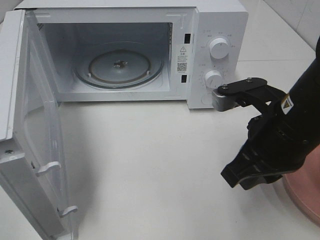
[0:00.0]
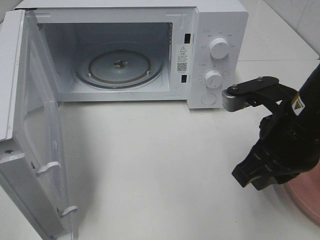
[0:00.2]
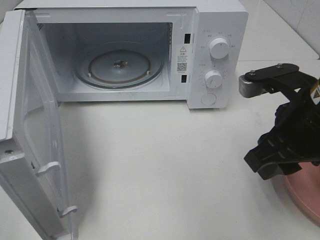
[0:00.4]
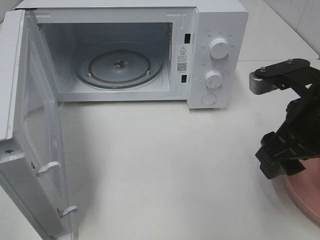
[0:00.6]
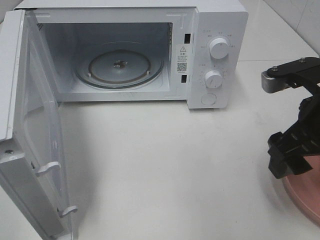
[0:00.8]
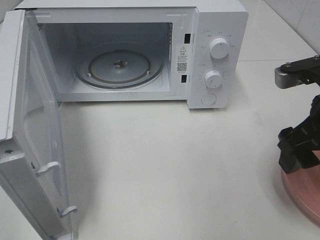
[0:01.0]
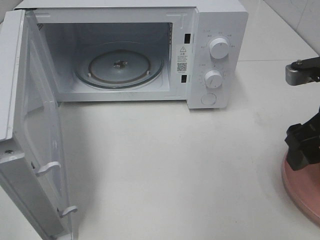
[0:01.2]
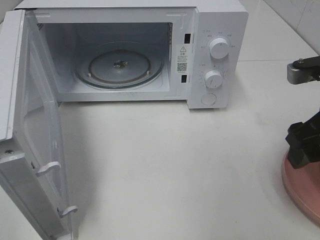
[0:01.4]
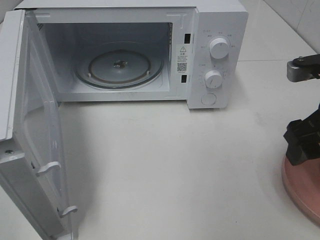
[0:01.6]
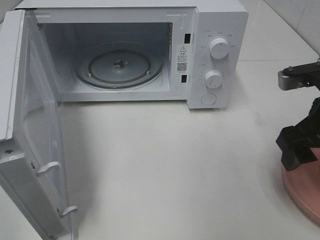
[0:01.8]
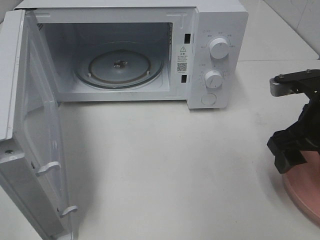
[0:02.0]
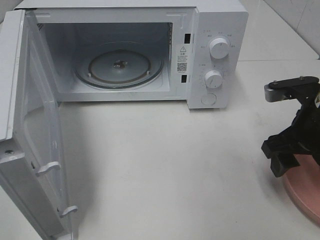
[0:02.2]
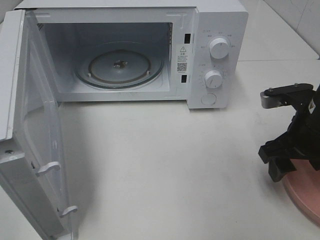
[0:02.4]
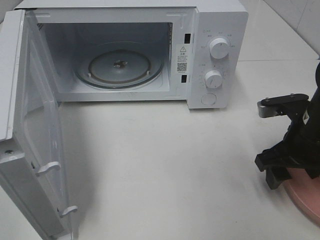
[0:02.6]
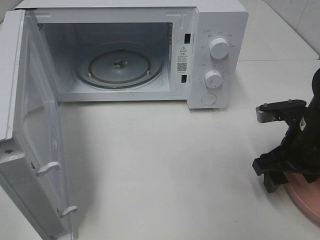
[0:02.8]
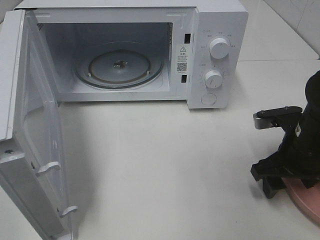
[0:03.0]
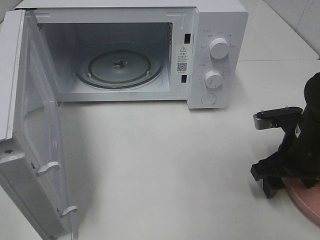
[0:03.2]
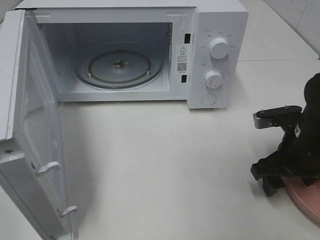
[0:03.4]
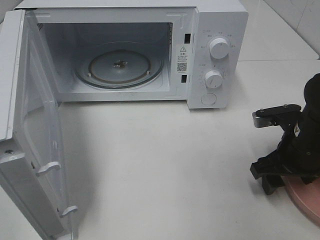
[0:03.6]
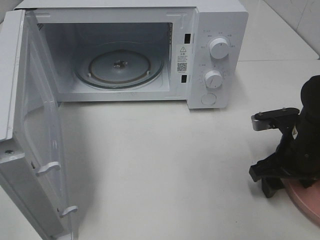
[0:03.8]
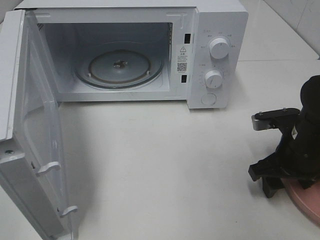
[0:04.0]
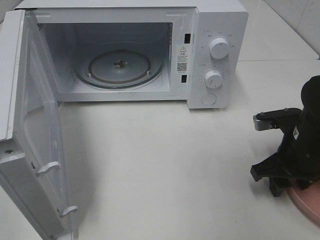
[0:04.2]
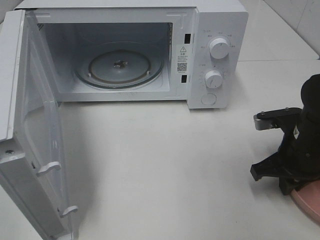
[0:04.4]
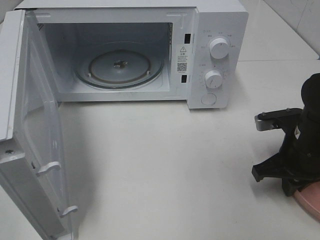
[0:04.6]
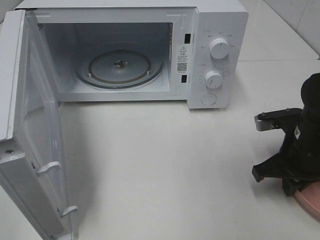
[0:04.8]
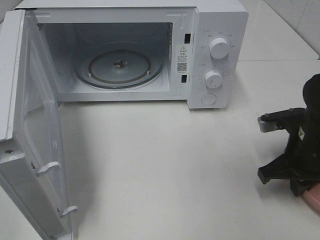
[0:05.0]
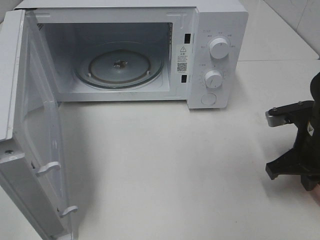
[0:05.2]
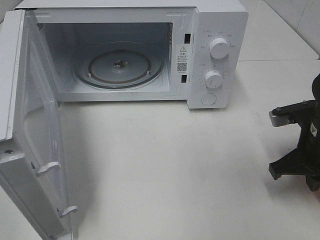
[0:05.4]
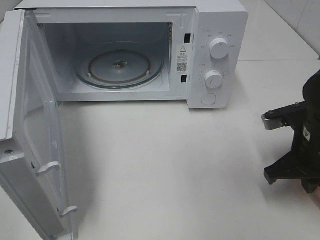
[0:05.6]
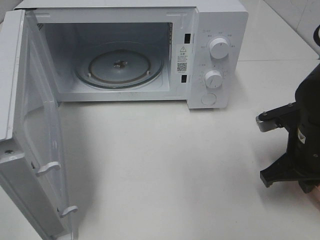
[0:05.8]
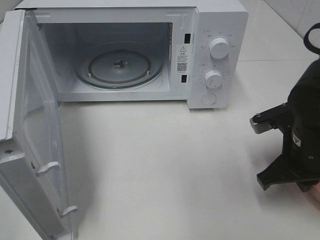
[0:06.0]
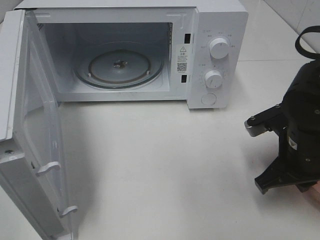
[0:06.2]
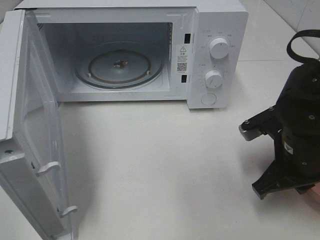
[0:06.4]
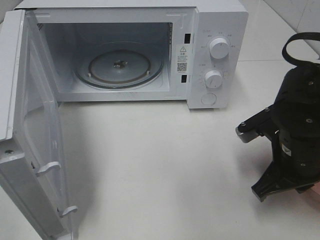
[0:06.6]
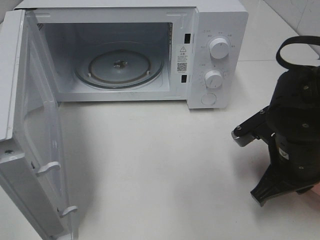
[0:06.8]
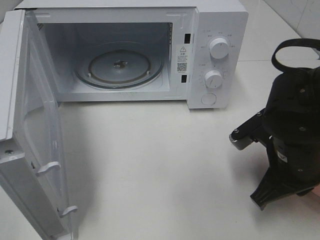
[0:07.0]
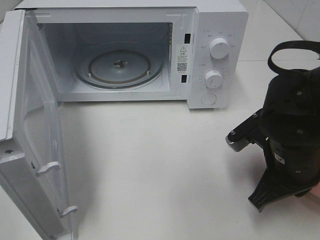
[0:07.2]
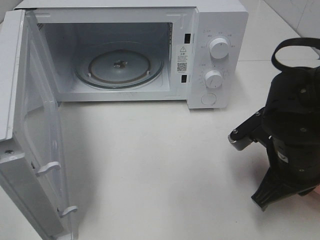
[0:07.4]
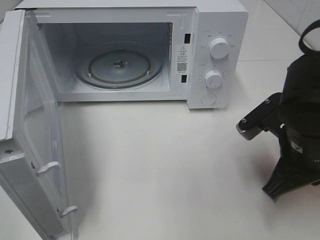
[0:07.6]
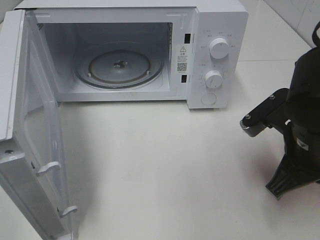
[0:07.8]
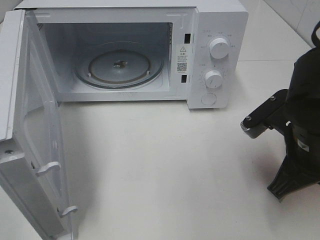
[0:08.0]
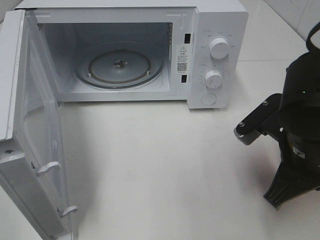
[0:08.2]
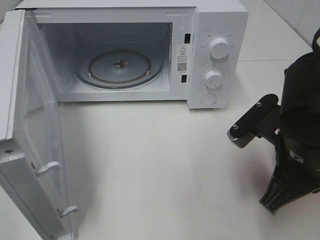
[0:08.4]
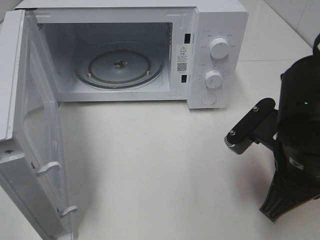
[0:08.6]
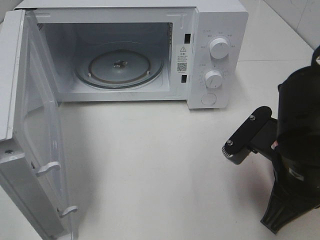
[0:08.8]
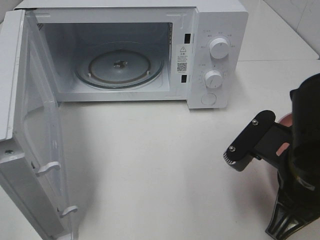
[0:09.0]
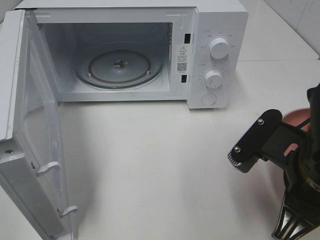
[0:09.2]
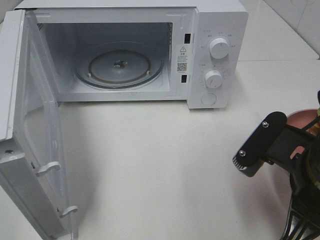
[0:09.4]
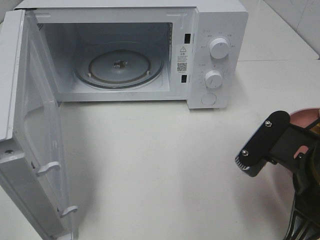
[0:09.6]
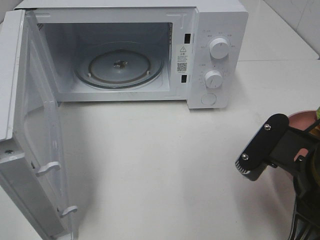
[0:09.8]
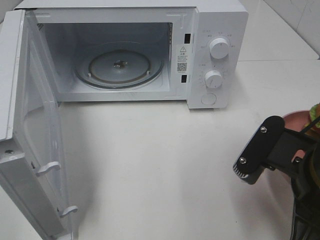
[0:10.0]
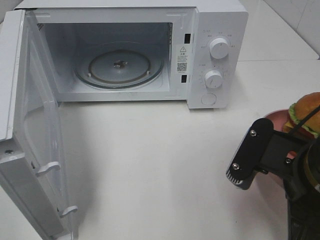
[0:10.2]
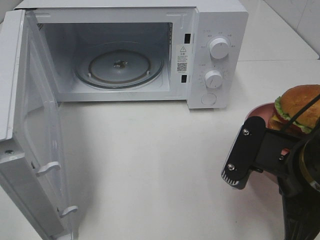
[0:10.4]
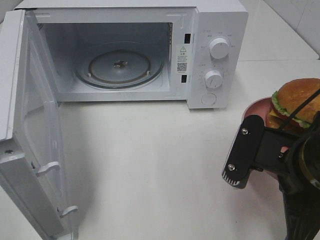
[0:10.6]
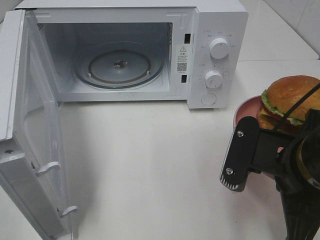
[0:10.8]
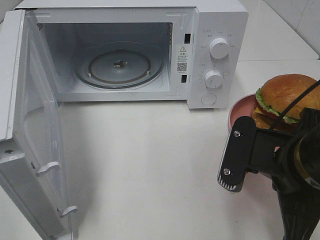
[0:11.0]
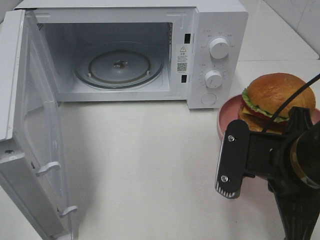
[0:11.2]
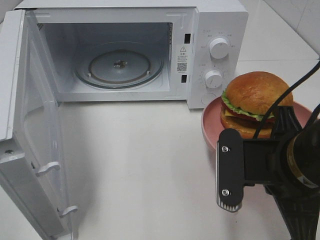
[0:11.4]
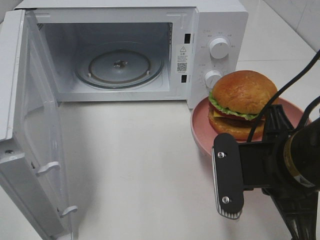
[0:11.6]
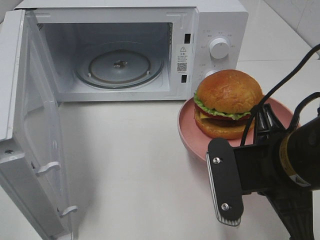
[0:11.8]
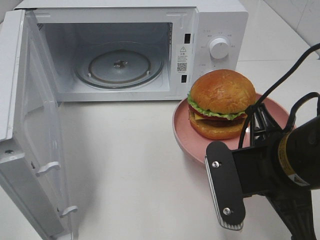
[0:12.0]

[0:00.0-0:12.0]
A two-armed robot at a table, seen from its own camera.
Task of the whole recording: Heat the burger.
Step, 0:00.0 to 0:04.8: Right hand: grab the plate with the hamburger.
0:00.0 to 0:01.6: The right gripper is displaced to the right by about 10 cm, and opens.
0:01.6 to 0:03.0: The right gripper travels downward by about 10 cm.
0:03.0 to 0:04.4: The right gripper closes its fingers.
0:04.4 to 0:06.0: The grippers move only a little.
0:06.0 to 0:07.6: The right gripper moves approximately 5 cm.
0:07.6 to 0:09.0: The right gripper shifts some 5 cm backward.
0:09.0 to 0:10.4: There are only small adjustments of the grippers.

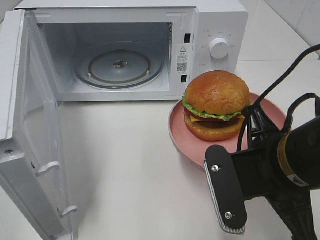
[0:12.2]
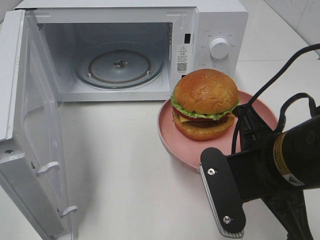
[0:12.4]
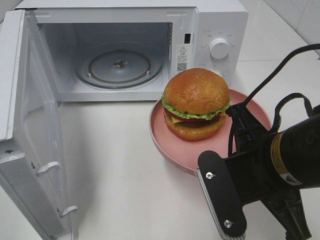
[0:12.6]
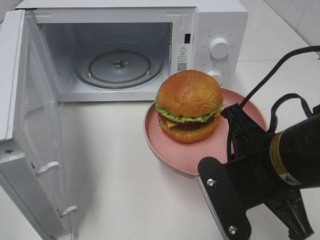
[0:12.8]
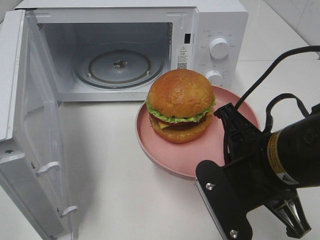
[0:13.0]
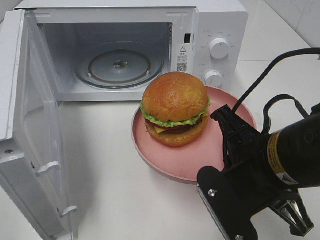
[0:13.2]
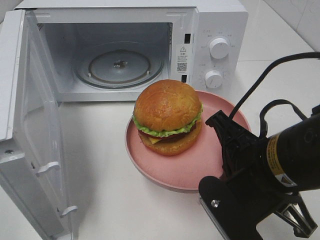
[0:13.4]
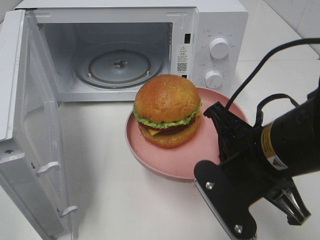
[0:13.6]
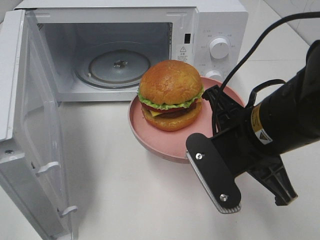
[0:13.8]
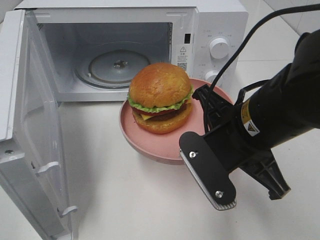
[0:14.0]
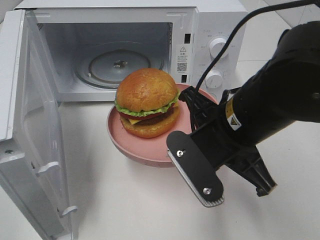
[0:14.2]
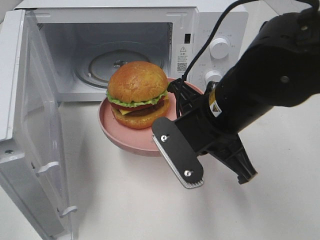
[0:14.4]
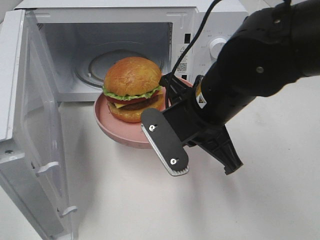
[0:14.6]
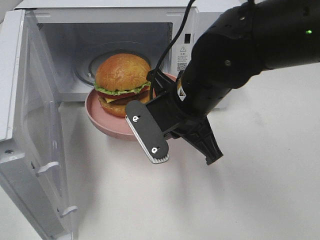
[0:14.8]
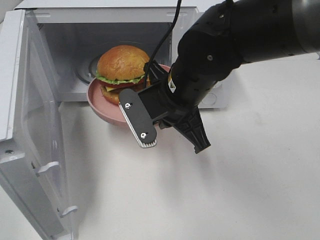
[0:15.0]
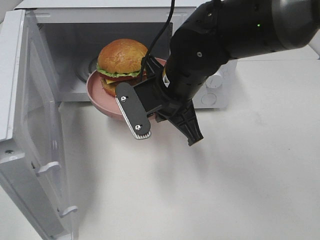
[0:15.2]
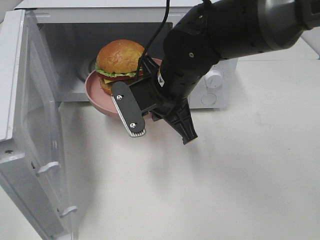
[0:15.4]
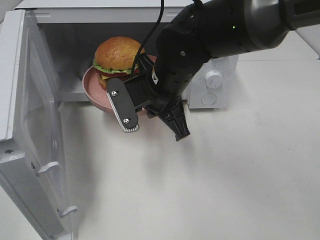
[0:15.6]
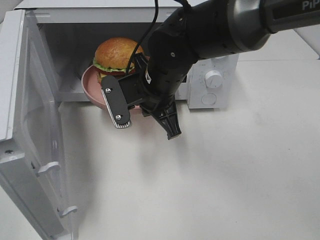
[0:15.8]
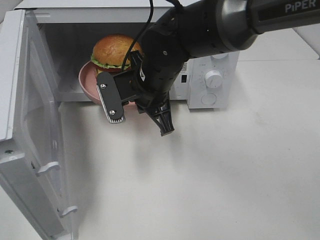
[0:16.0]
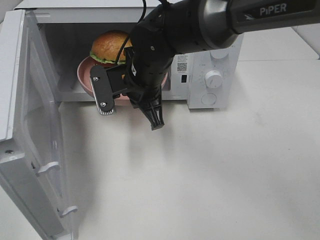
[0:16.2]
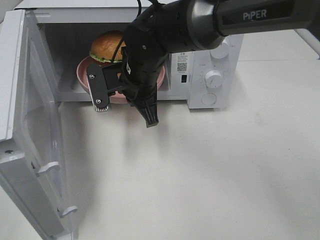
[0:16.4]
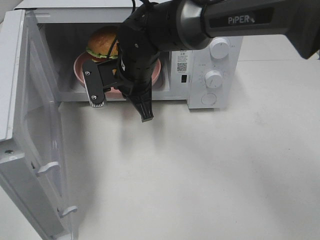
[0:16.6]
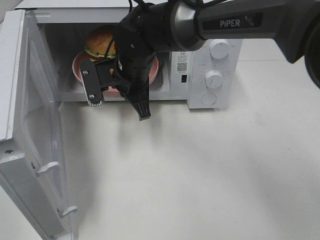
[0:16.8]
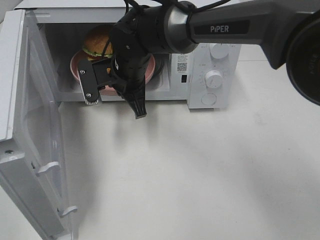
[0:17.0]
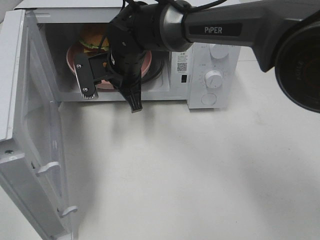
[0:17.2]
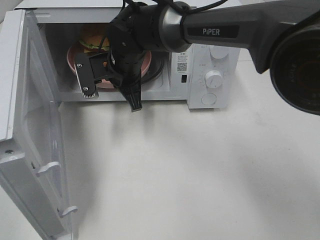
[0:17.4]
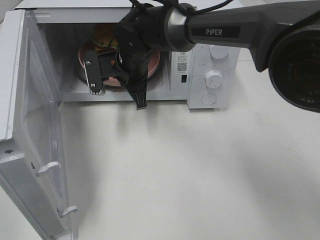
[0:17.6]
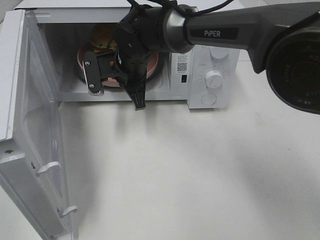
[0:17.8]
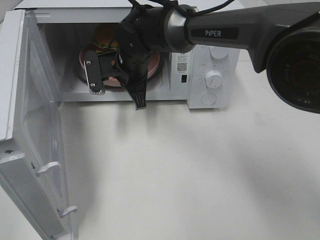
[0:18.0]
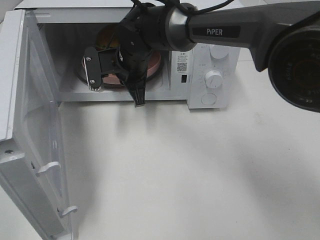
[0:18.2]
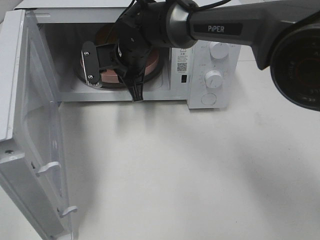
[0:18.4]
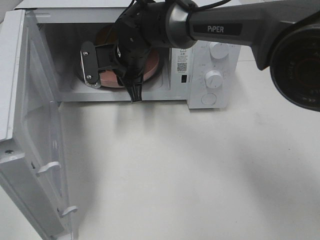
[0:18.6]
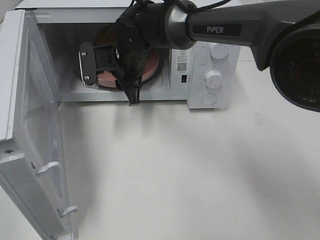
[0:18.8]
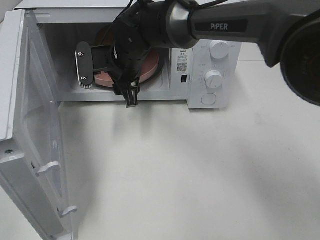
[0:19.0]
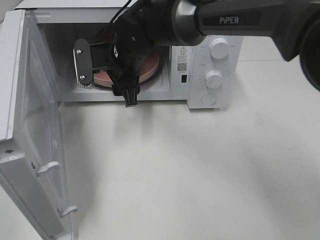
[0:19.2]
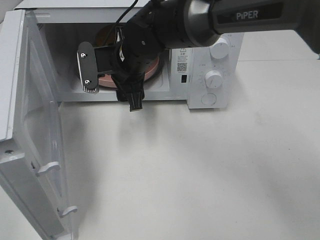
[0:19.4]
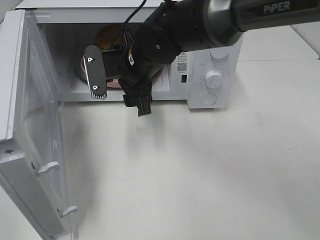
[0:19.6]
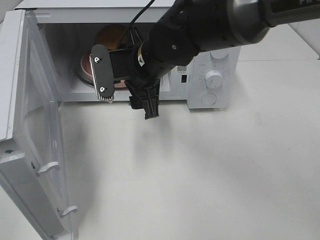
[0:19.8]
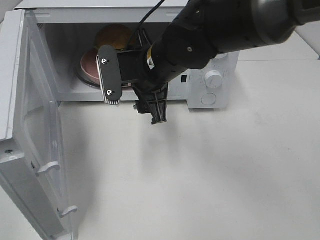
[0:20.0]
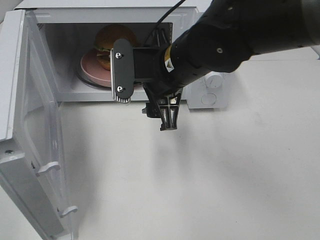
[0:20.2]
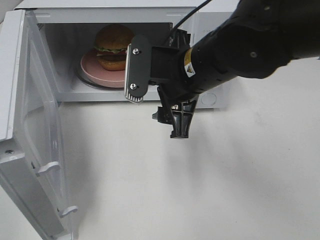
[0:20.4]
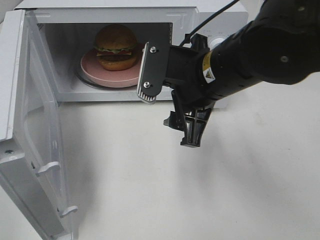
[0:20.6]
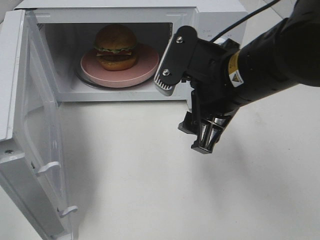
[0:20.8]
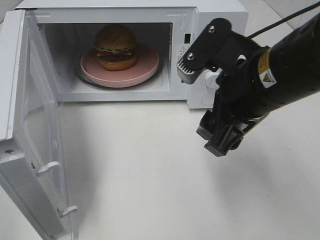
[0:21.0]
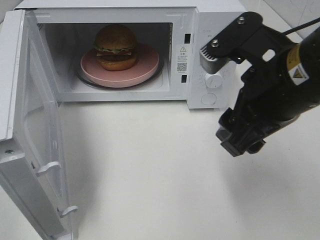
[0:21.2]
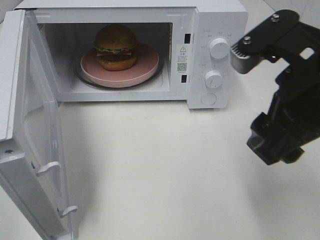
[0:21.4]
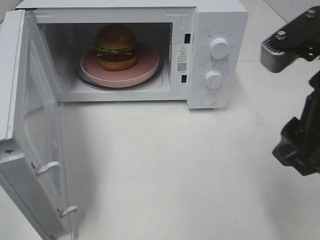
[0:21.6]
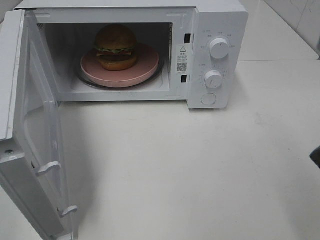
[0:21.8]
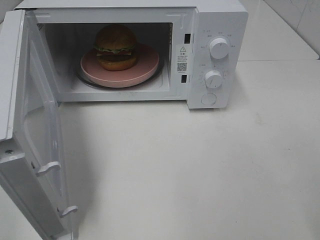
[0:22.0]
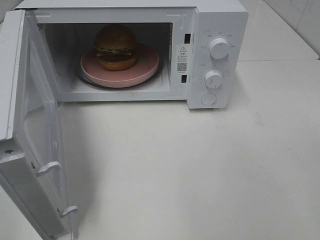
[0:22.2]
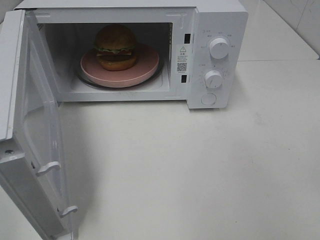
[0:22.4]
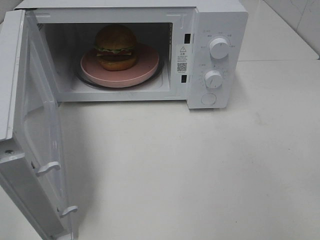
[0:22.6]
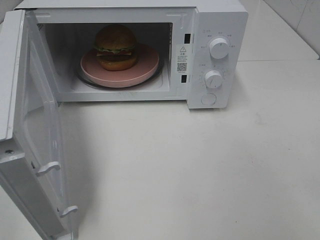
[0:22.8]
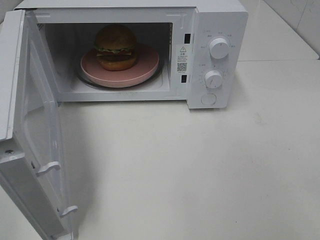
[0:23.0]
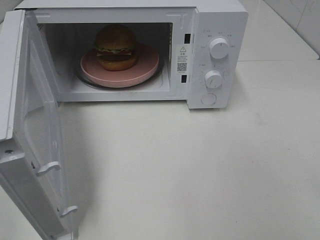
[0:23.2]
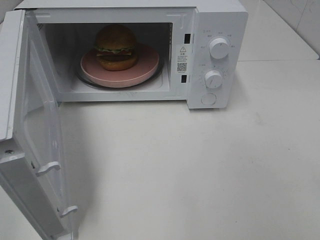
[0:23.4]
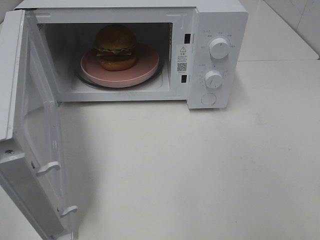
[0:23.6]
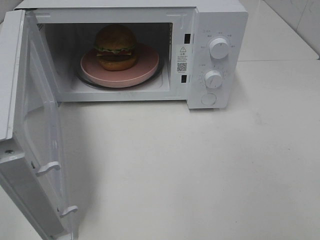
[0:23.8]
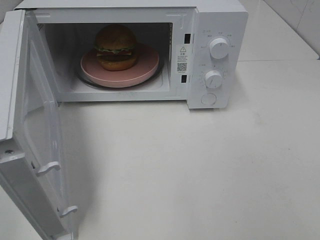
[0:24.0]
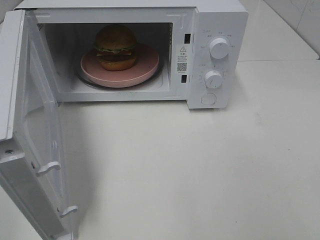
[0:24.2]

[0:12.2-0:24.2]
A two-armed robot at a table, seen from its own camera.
Task of the whole recording: Heat the burger.
Step, 0:12.2 to 0:18.6: Right hand: place the plate in the microwave.
0:13.8 to 0:15.2: The right gripper goes some 15 cm forward and to the left.
0:15.2 to 0:16.6: The right gripper travels forward and to the left by some 10 cm.
0:16.6 to 0:18.2: The grippers stay close to where they were, moving slightly.
0:18.2 to 0:19.8: The right gripper travels backward by about 10 cm, and opens up.
0:19.8 to 0:21.2: The right gripper shifts some 20 cm backward, to the right and upward.
0:21.2 to 0:22.6: The right gripper travels backward and to the right by approximately 20 cm.
